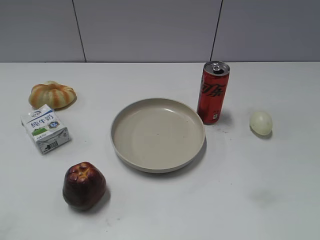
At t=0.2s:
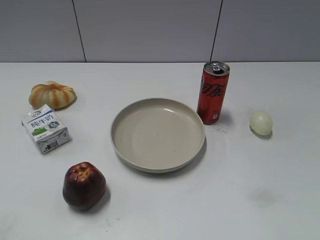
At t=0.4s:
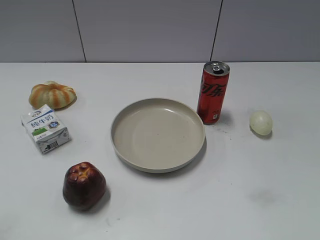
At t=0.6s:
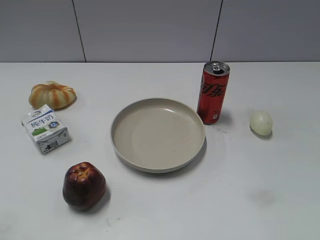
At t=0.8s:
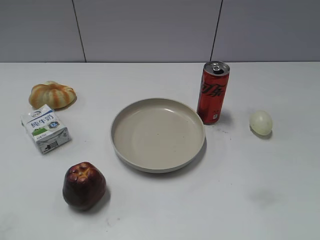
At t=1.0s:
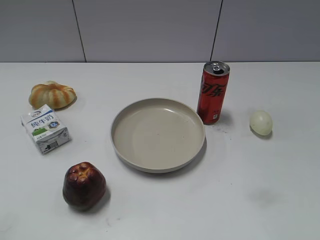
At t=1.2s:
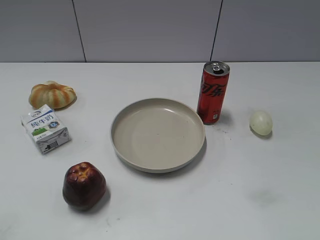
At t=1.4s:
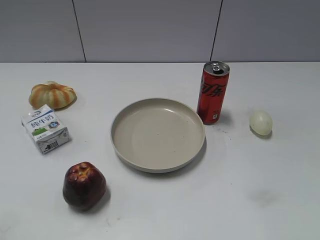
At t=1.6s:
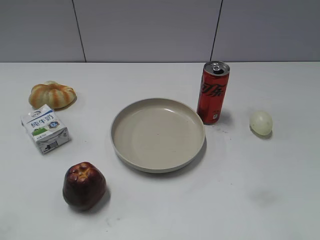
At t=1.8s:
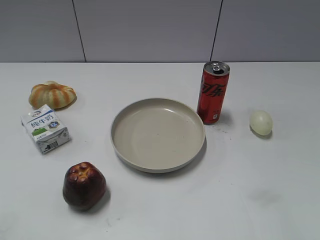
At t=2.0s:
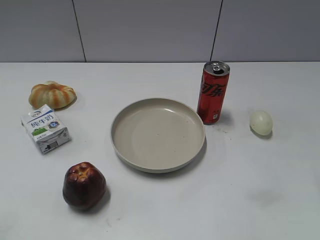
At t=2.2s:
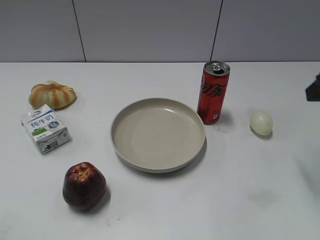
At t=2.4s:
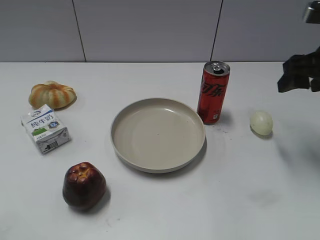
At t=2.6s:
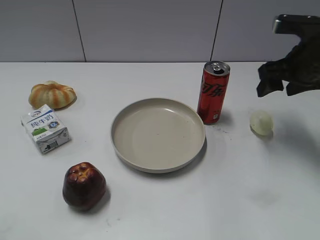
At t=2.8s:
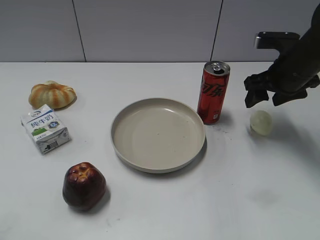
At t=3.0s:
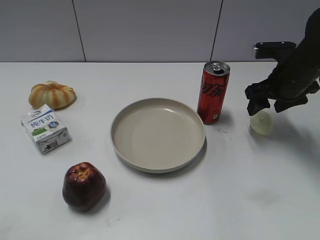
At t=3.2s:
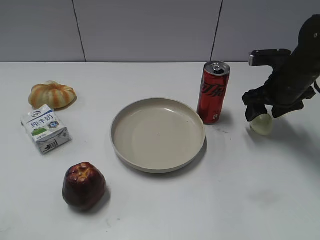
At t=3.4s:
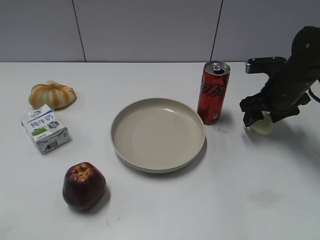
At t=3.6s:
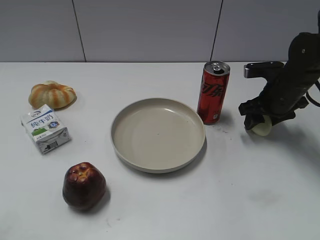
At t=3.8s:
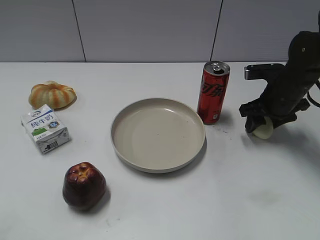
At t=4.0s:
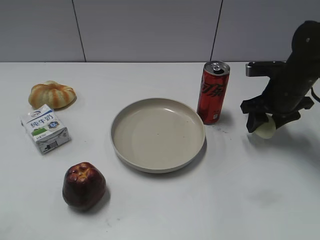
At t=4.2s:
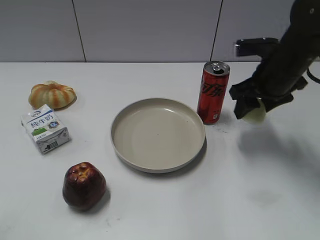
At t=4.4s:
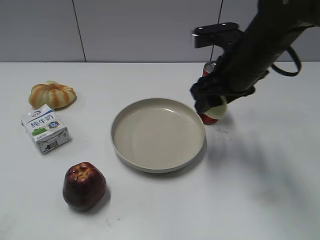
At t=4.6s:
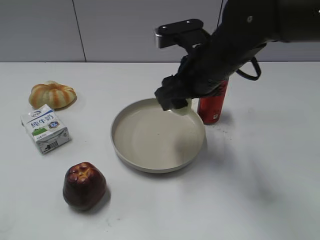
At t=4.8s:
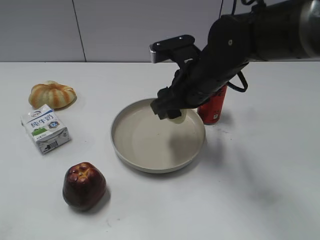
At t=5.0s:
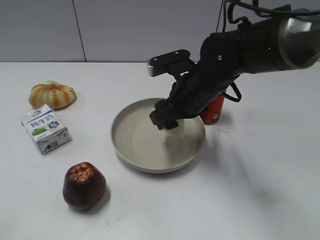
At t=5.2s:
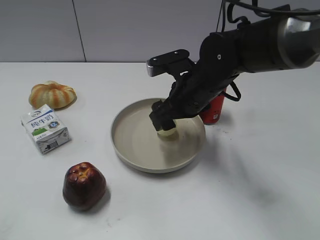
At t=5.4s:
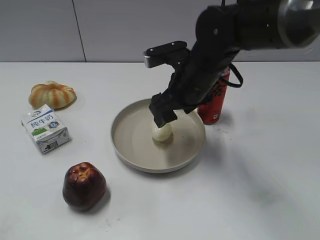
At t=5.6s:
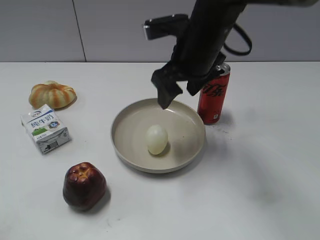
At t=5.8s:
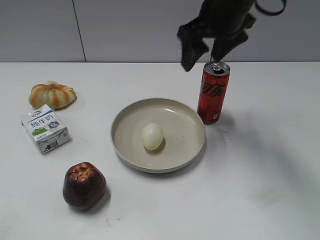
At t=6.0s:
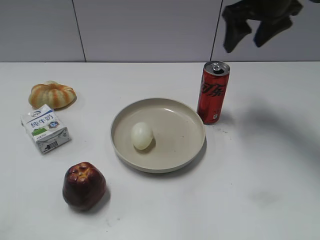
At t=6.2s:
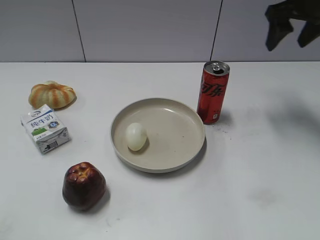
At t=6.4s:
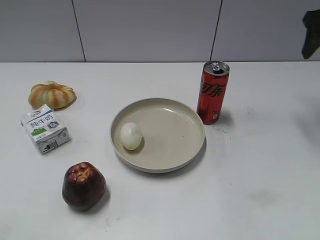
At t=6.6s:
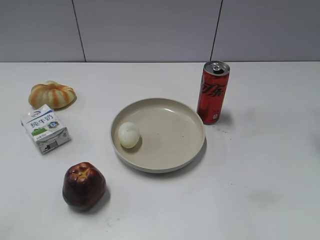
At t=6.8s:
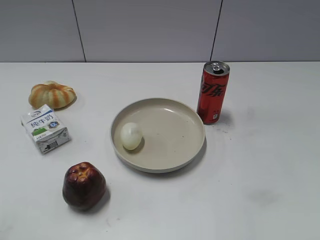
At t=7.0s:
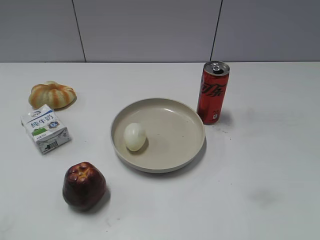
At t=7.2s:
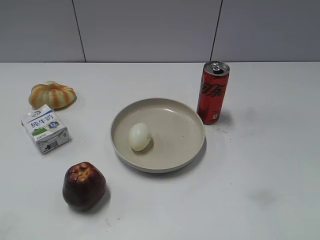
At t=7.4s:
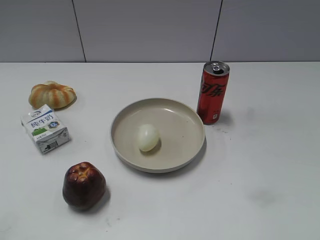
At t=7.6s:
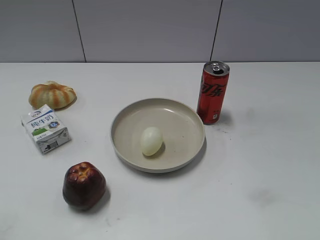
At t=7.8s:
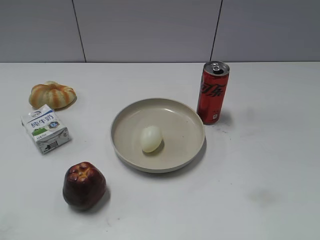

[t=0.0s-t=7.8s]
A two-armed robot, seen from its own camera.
Step, t=1.2s to t=3.6s: Grasp the egg with right gripper.
Step, t=3.8s to t=5.4s: Place the egg on the plate with right gripper.
t=1.6s to t=3.2s: The right gripper goes some 35 cm forward and downward.
t=3.2s to t=4.6s: The right gripper moves to the left, backward and upward, about 20 cm, and closes up.
t=4.6s to t=6.2s: The right gripper goes roughly 25 cm to the right, forward and upward, and opens its fingers.
t=6.2s to t=7.8s: The right gripper shifts approximately 40 cm backward.

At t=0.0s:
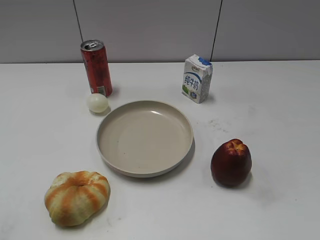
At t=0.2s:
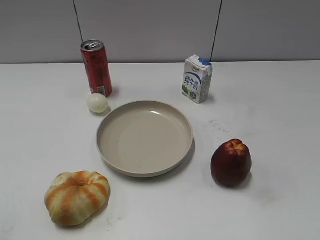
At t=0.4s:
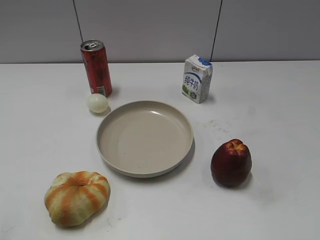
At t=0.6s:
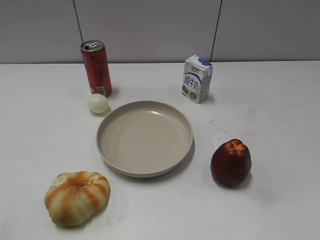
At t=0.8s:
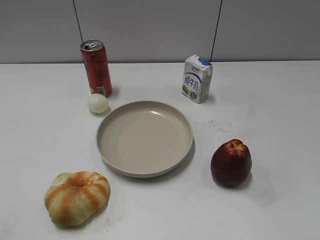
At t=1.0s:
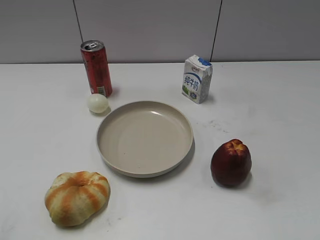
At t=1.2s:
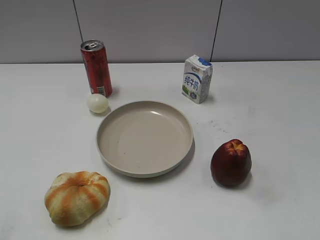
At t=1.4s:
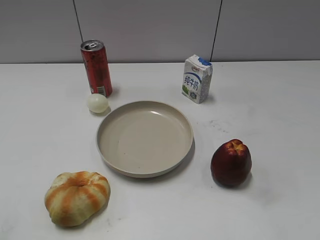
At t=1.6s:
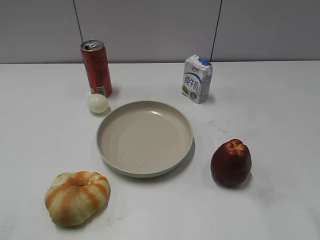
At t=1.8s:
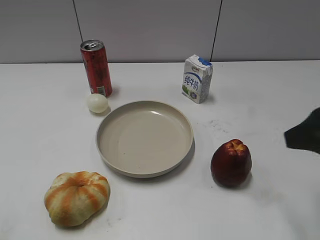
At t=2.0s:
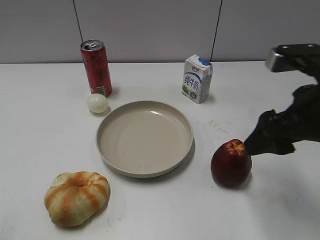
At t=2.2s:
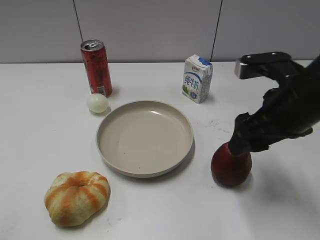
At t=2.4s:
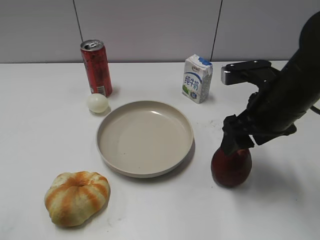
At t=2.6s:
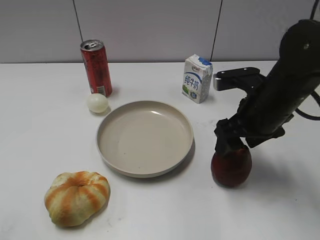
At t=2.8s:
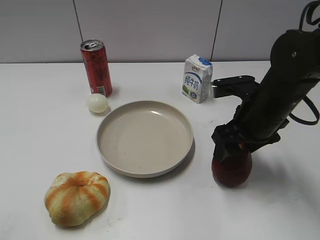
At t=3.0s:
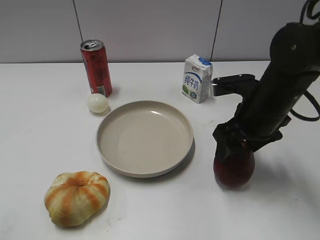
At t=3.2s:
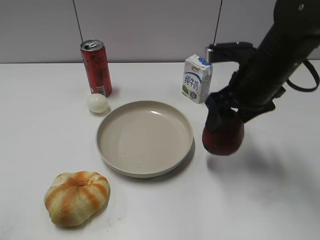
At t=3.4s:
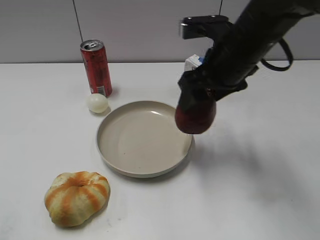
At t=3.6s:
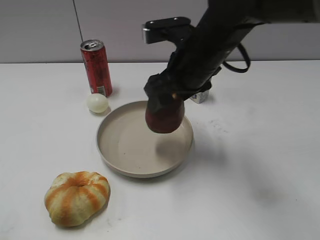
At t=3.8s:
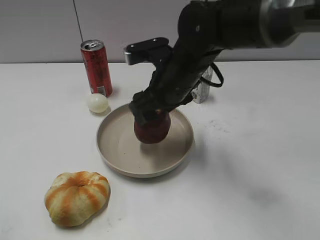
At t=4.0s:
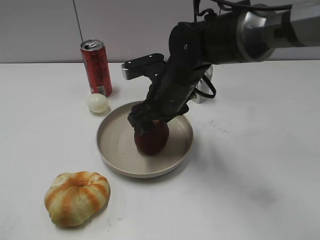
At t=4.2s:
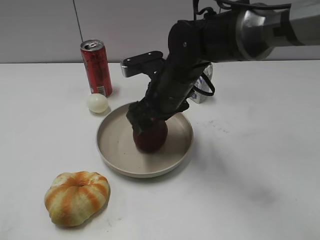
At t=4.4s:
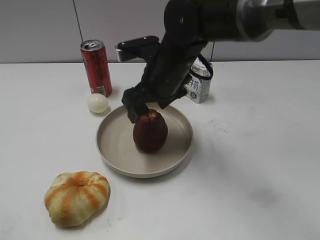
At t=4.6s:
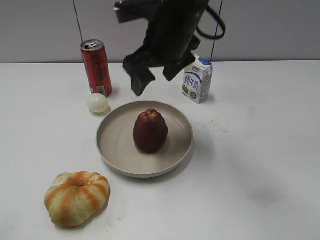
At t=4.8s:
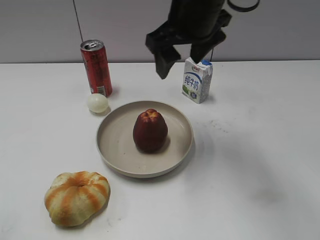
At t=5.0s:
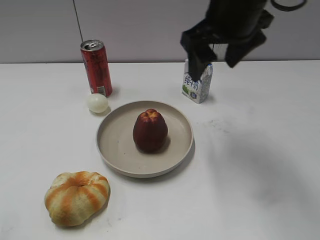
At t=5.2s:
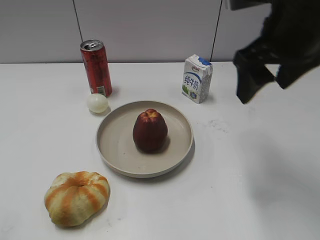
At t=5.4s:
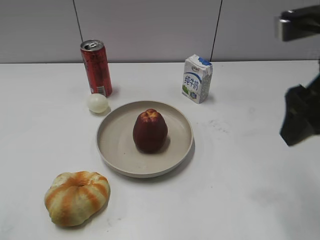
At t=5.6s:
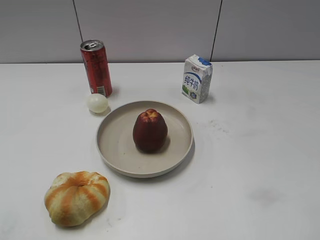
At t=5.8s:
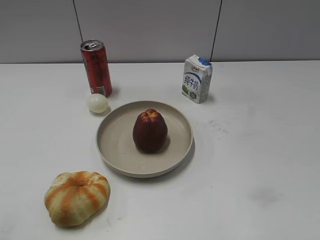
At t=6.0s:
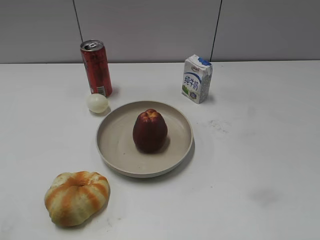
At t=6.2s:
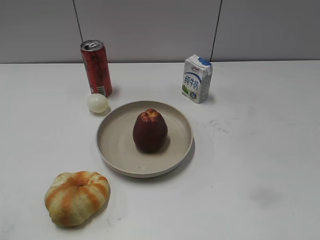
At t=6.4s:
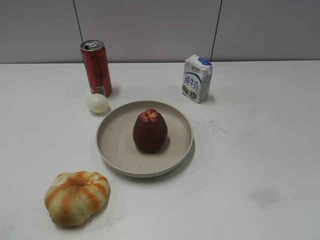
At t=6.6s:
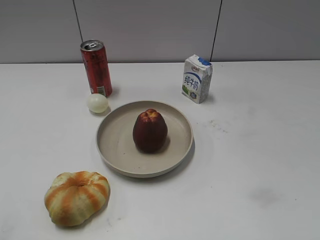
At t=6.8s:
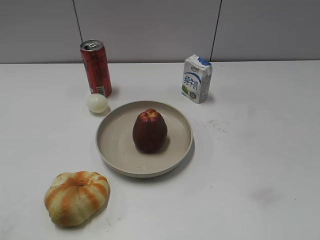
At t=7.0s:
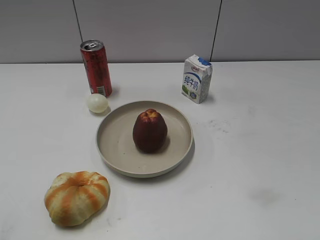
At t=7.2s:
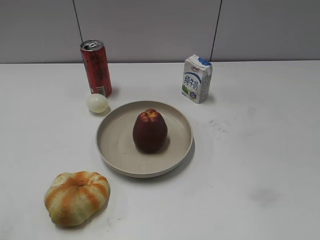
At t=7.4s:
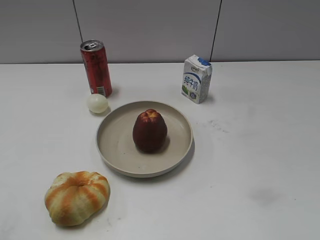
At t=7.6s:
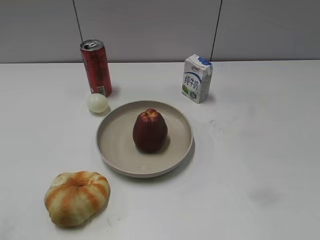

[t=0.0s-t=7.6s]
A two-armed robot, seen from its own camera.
Step, t=1.0s to t=2.8s: Grasp the apple with right gripper.
Step, t=3.0s to t=4.4s: Place the apple on the plate with right gripper.
t=1.6s to t=3.0s: The right gripper heads forward, downward and to the left, covering roughly 25 cm.
t=3.0s to t=4.6s: The right gripper goes roughly 15 cm to the left and upward.
t=4.6s to t=6.0s: The right gripper moves backward and to the right, roughly 40 cm.

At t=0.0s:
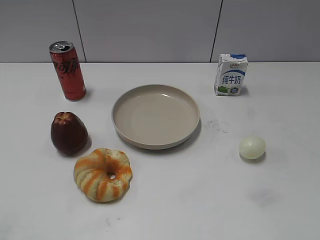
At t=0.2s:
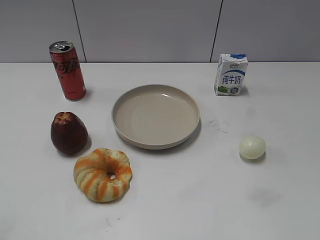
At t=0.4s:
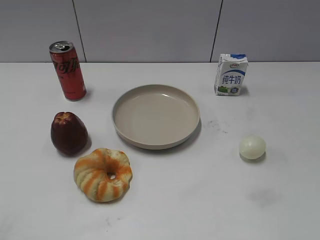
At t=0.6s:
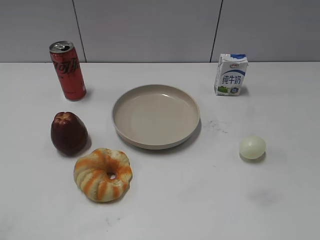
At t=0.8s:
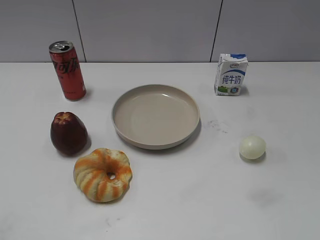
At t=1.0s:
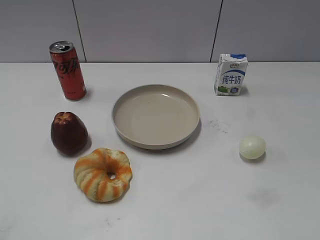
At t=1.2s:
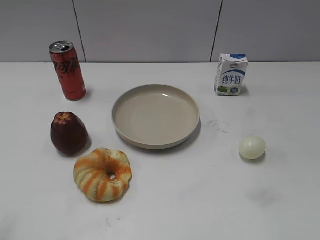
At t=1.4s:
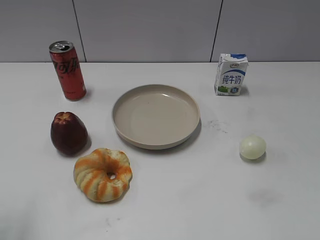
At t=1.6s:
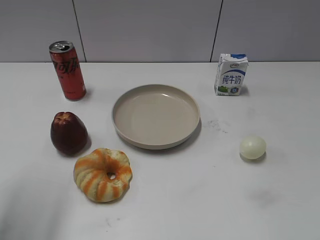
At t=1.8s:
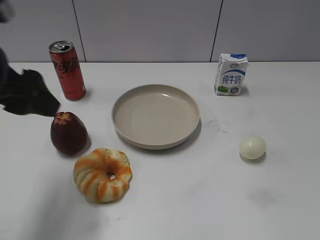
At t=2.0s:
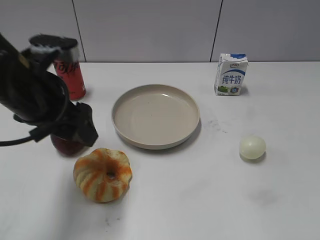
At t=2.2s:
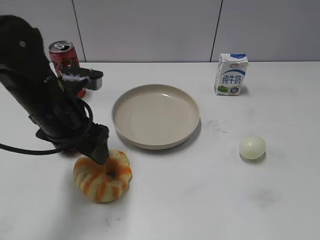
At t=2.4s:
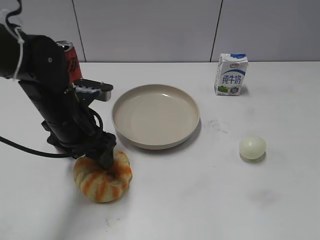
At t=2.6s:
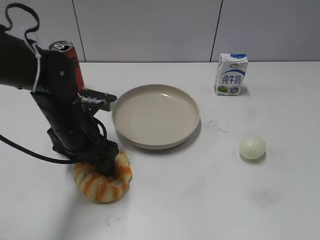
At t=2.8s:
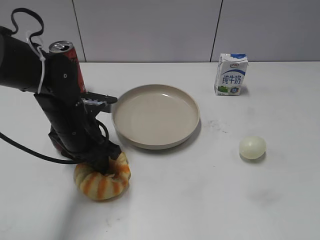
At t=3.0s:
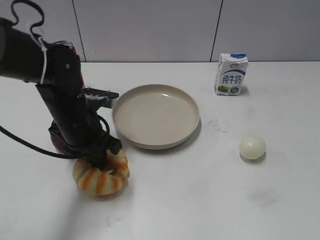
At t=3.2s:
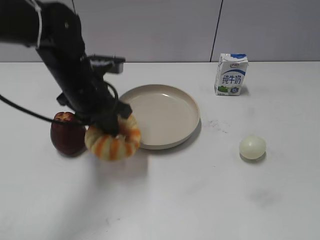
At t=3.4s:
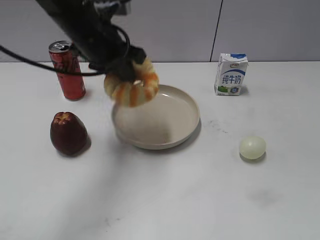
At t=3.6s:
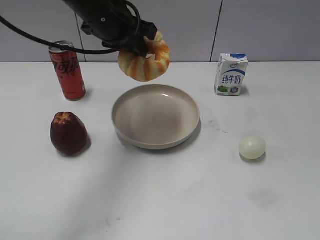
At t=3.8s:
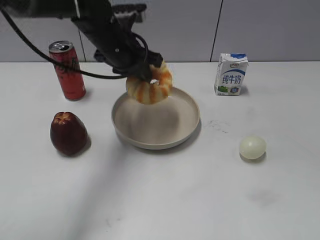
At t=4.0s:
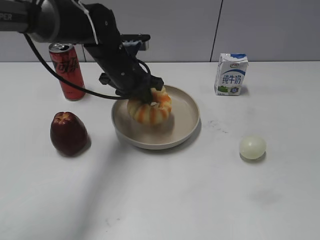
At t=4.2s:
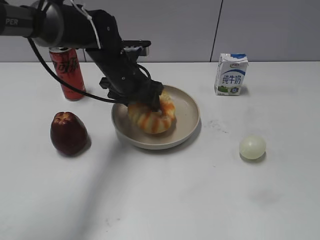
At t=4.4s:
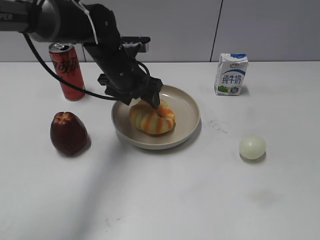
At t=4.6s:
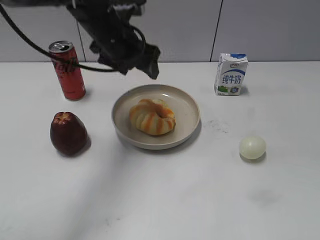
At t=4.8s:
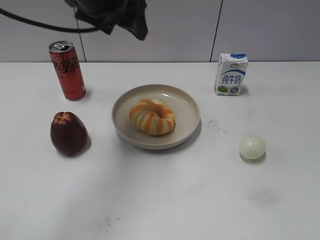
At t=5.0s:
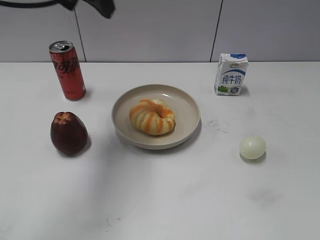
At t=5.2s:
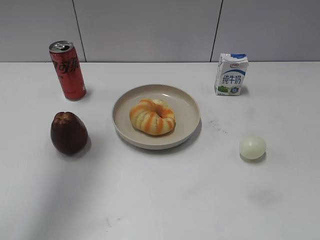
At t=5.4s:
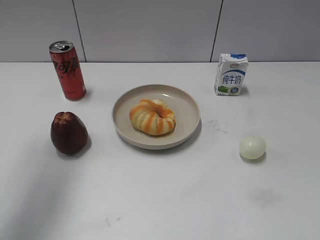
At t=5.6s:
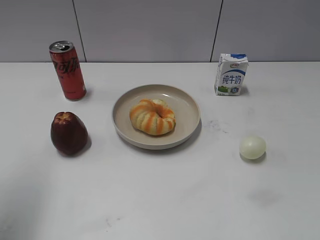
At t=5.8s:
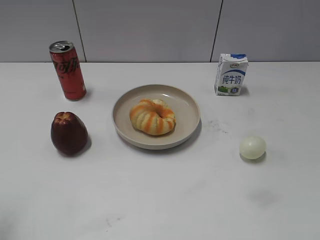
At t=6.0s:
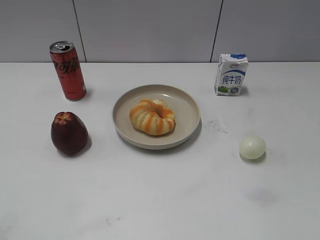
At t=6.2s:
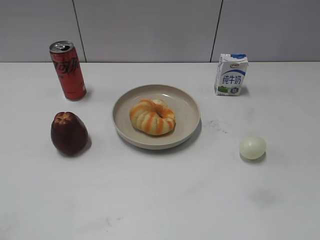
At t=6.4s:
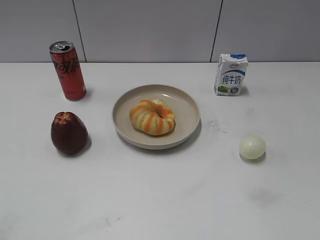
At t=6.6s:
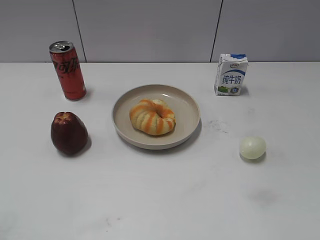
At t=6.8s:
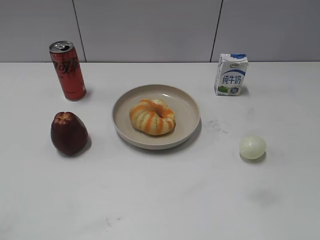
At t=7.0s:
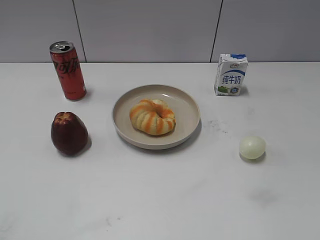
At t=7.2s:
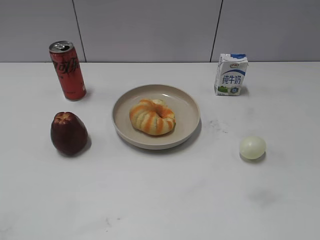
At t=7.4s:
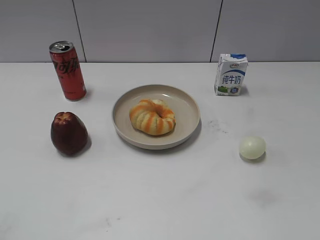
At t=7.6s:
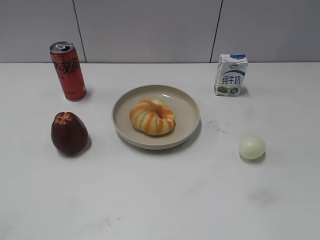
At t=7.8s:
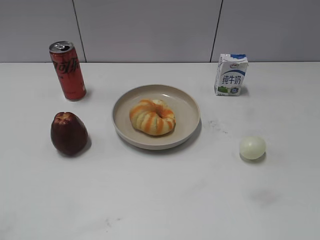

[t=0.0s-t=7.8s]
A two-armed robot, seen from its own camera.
Step, t=1.0s to t=2.8s: Grasp the round bread with left gripper.
Step, t=3.0s to t=4.4s: Place the round bread on the plate with left gripper.
t=1.6s to t=3.2s: The left gripper travels downward, to the right and forward by approximately 30 cm, and closes up.
t=3.2s to t=4.6s: The left gripper shifts approximately 10 cm forward and to the right, reaches some 15 cm upward, then returns, and opens.
t=4.6s to t=6.2s: The left gripper moves backward and to the left, some 40 cm.
